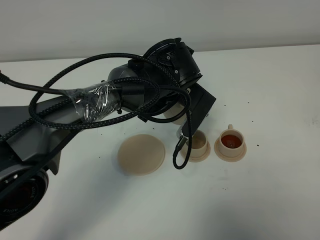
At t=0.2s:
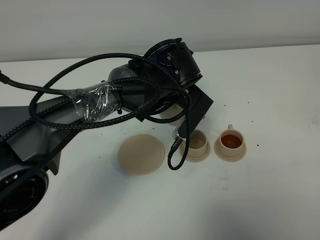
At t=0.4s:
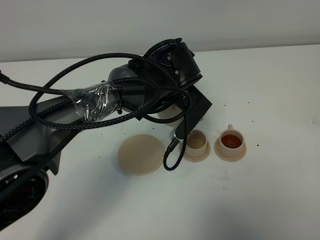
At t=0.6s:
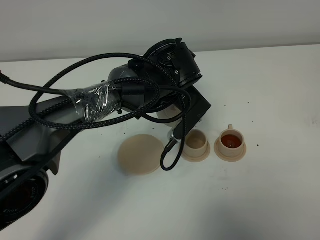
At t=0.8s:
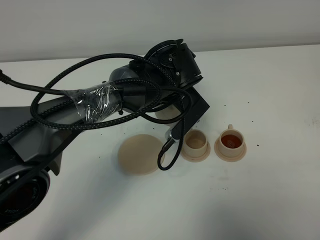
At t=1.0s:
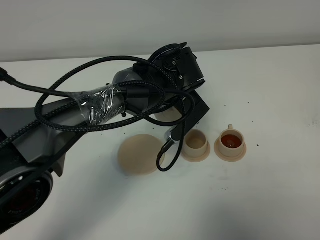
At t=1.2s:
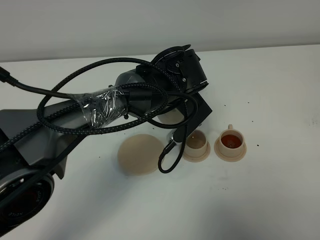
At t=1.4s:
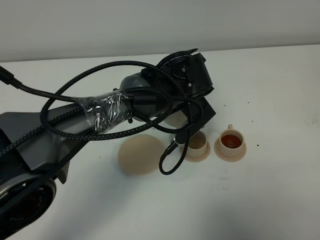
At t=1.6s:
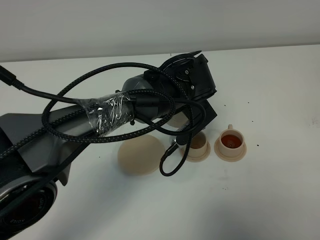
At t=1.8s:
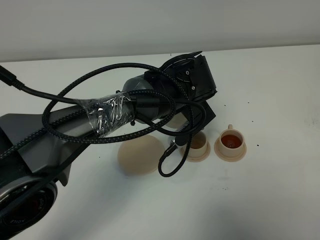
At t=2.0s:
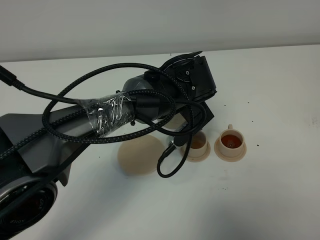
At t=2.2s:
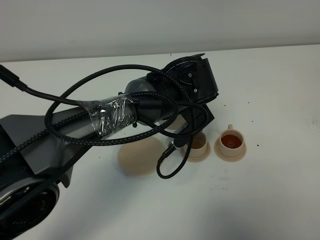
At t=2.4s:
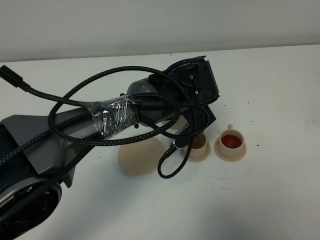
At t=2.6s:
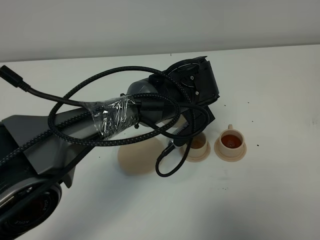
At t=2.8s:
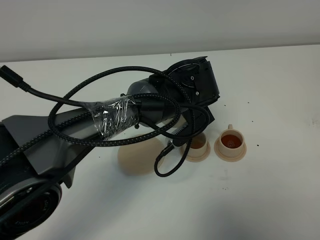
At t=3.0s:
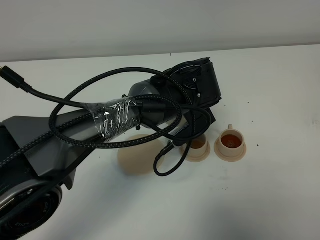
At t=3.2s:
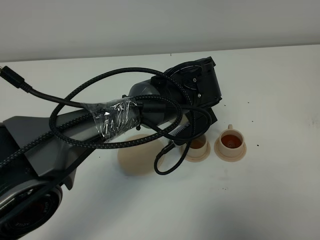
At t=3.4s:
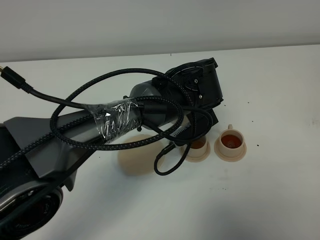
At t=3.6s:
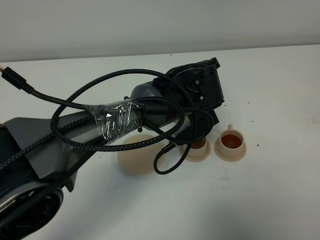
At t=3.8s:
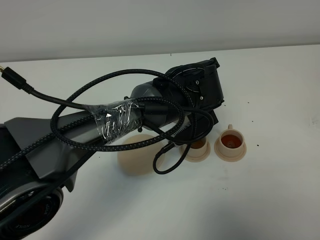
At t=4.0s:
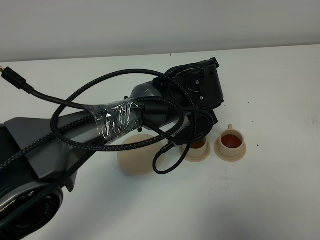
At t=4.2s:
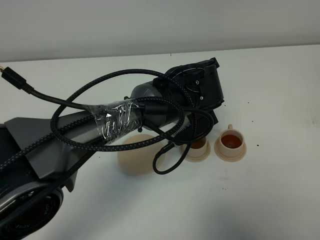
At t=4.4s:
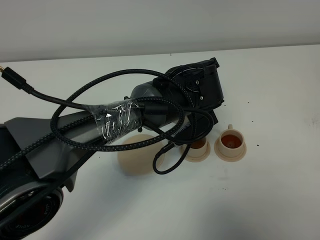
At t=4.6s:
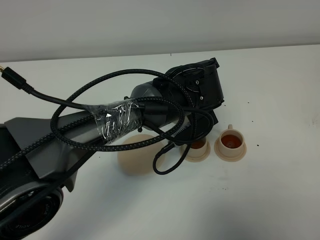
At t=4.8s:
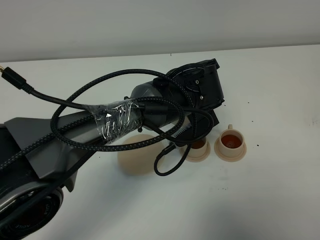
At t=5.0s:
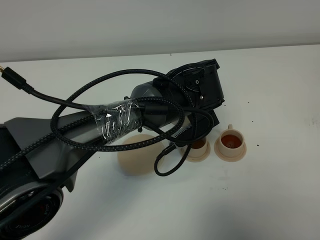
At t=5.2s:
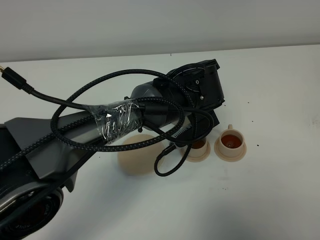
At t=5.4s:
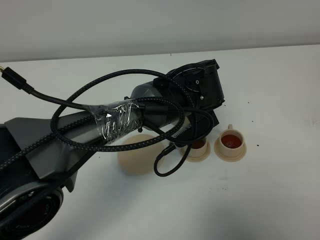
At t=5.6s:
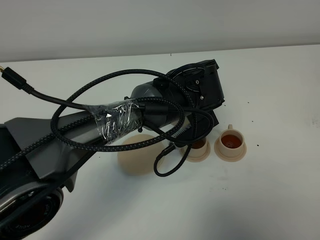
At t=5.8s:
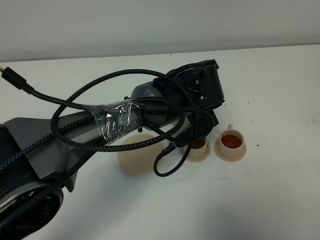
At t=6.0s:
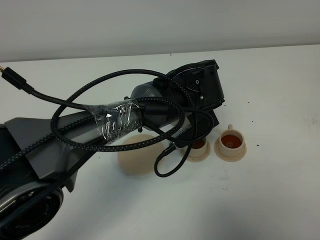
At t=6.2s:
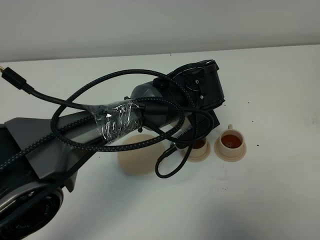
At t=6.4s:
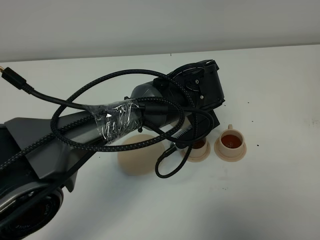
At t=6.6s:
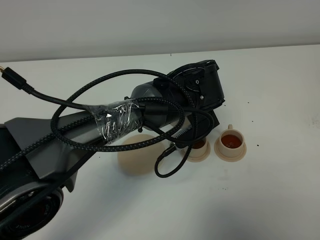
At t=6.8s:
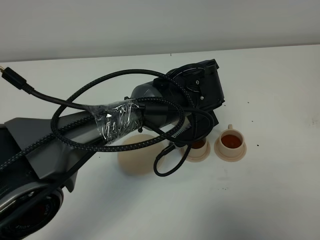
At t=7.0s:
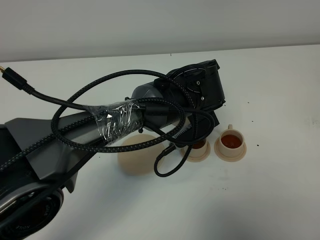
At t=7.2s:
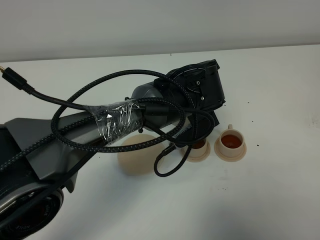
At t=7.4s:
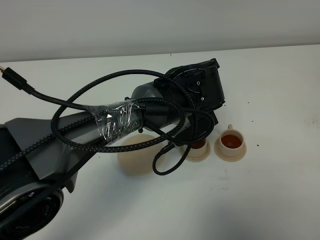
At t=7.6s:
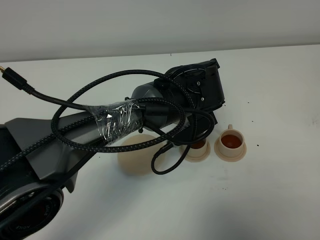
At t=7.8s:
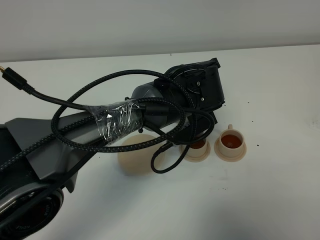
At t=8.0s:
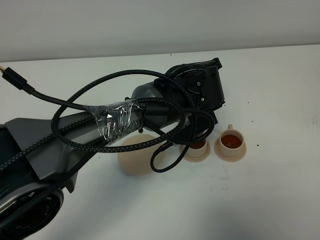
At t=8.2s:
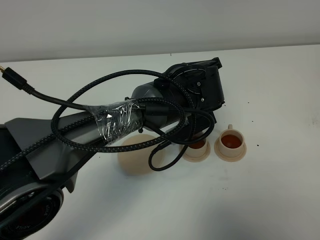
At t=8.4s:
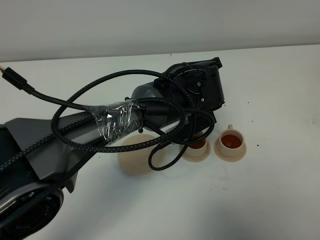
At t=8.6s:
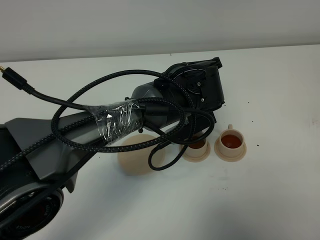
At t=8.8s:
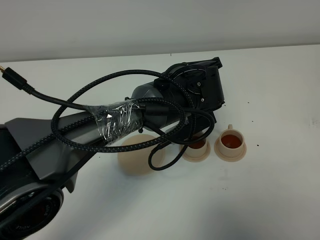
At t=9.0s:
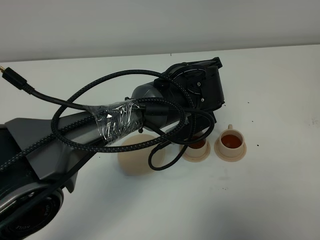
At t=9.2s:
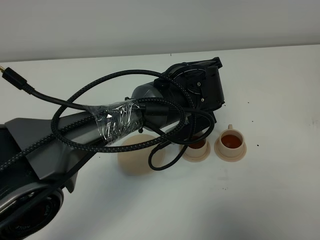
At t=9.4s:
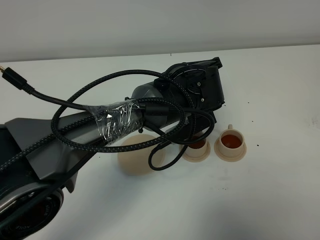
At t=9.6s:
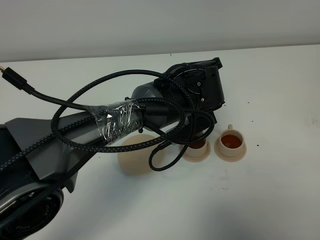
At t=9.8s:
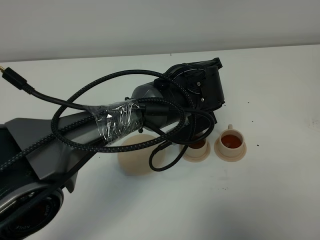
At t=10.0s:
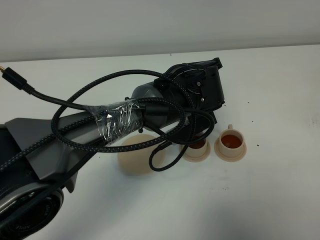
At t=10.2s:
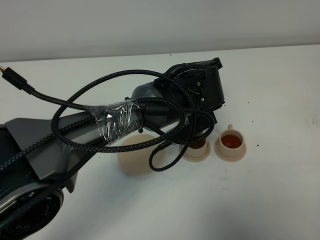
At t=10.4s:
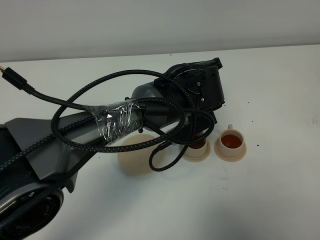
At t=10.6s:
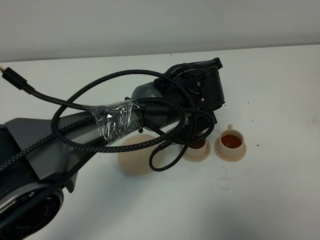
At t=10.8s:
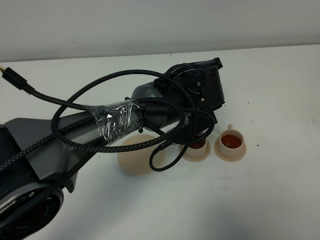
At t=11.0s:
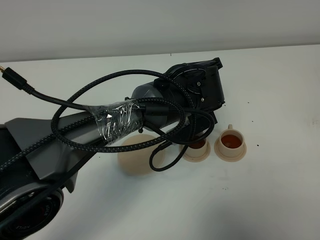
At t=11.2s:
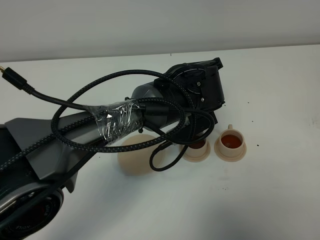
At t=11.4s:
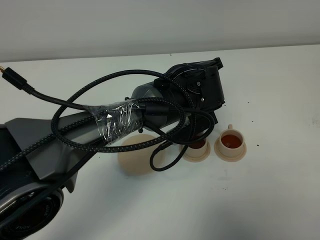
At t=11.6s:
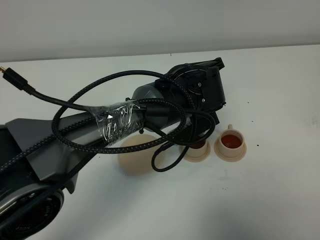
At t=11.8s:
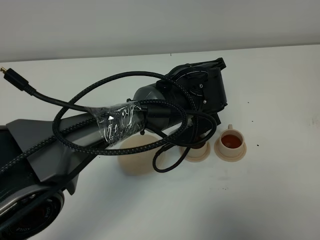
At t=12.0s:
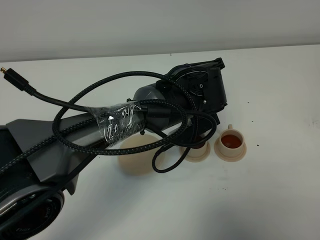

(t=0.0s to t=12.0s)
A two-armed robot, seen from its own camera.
Task of the whole recording: grasp the brown teapot and pour the tea into the two brown teacups one by one, put the brown teapot back in its original place.
t=0.0s - t=1.6s: The grippers make only small movements.
t=1.6s - t=3.0s: The grippers stay close to where they were, moving slightly.
t=3.0s - t=6.0s: Both grippers stay about where they are.
t=6.0s - t=7.6s: Both grippers stay about where they are.
t=7.6s - t=12.0s: Neither gripper changes place.

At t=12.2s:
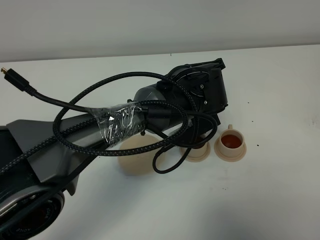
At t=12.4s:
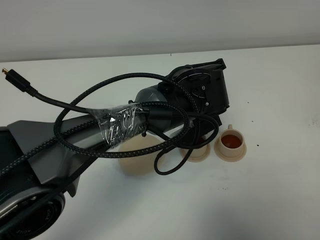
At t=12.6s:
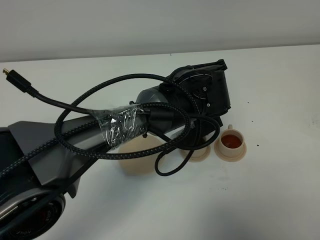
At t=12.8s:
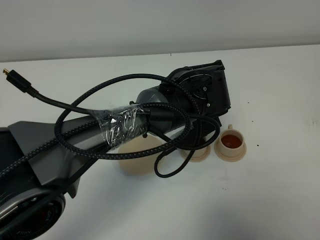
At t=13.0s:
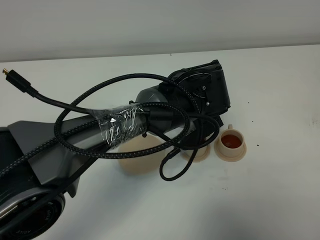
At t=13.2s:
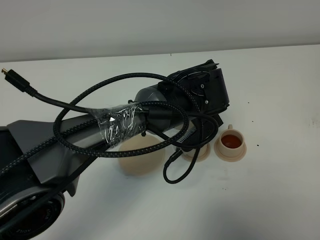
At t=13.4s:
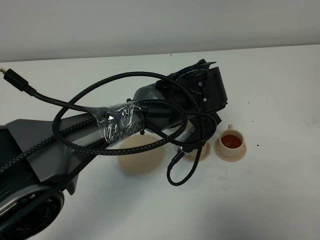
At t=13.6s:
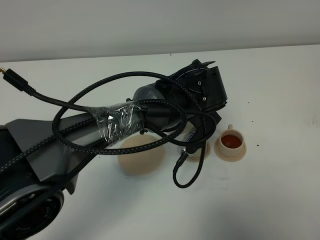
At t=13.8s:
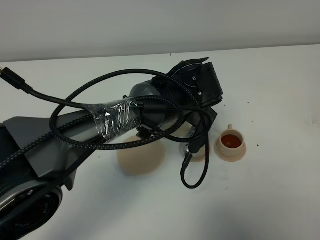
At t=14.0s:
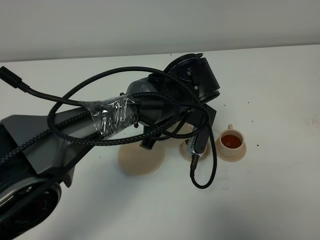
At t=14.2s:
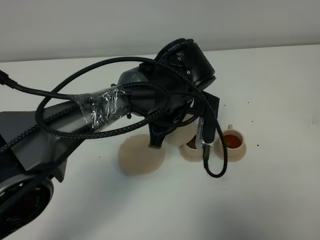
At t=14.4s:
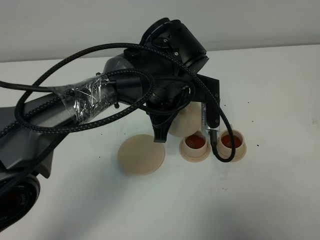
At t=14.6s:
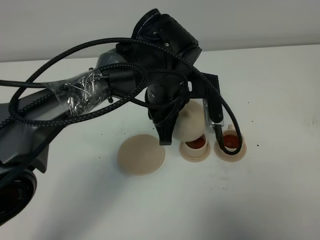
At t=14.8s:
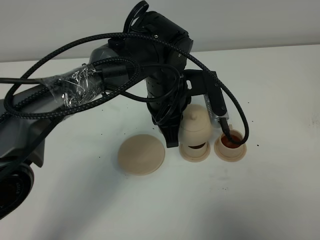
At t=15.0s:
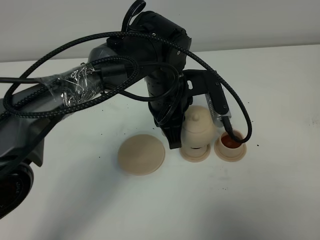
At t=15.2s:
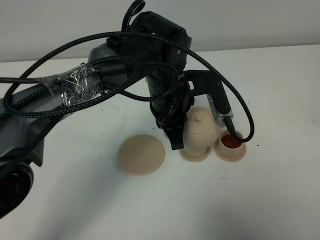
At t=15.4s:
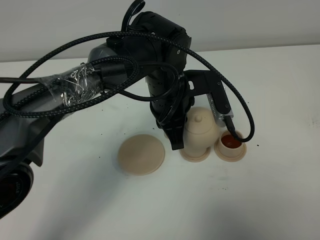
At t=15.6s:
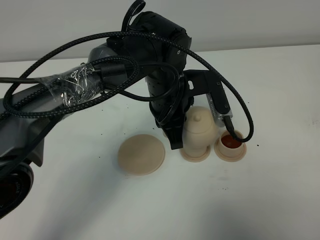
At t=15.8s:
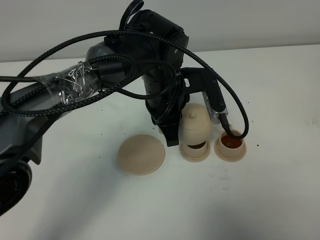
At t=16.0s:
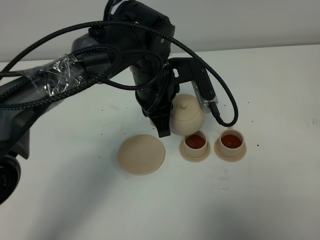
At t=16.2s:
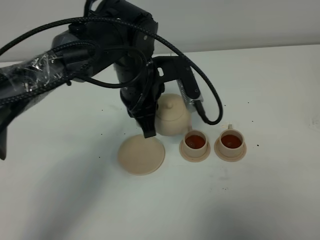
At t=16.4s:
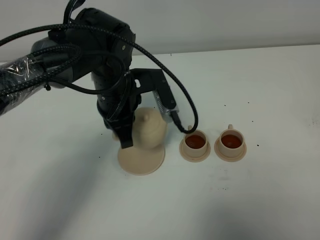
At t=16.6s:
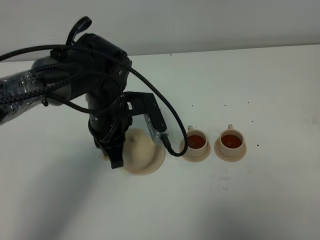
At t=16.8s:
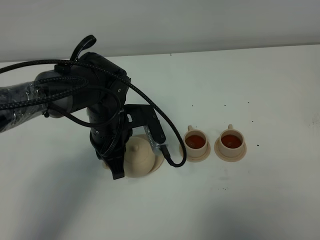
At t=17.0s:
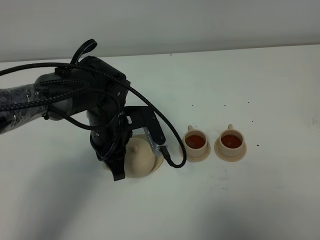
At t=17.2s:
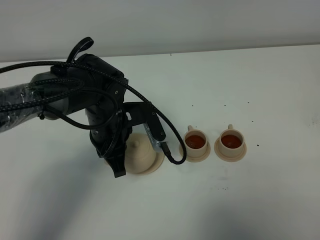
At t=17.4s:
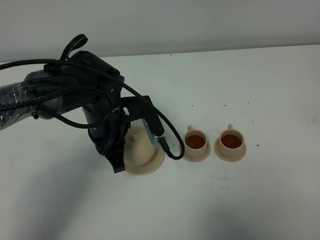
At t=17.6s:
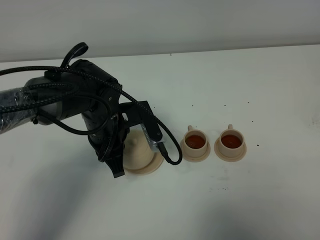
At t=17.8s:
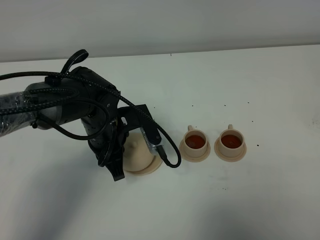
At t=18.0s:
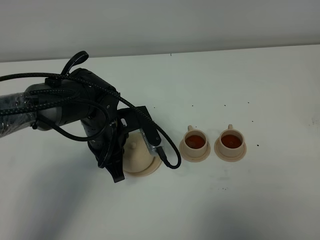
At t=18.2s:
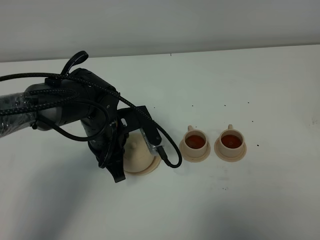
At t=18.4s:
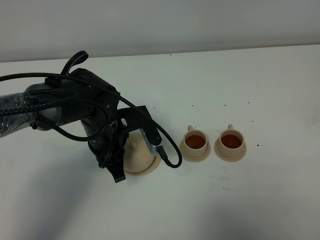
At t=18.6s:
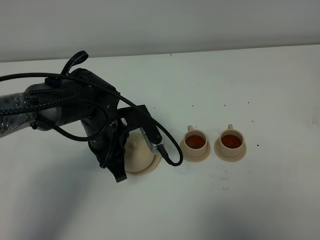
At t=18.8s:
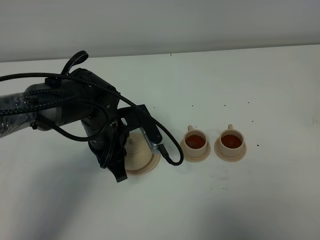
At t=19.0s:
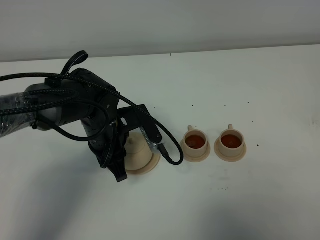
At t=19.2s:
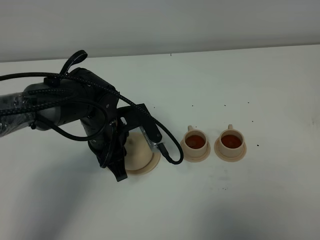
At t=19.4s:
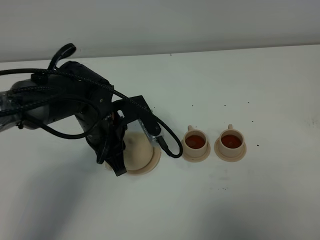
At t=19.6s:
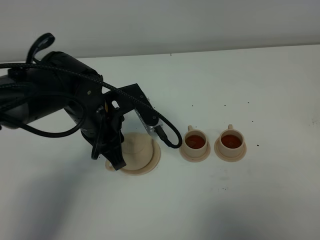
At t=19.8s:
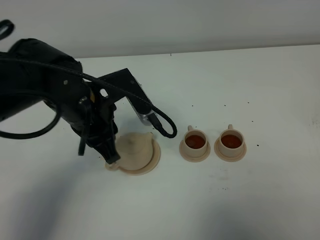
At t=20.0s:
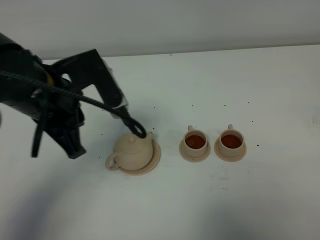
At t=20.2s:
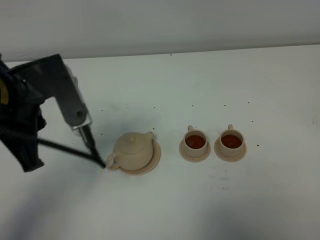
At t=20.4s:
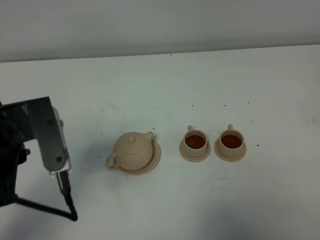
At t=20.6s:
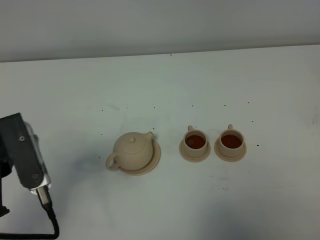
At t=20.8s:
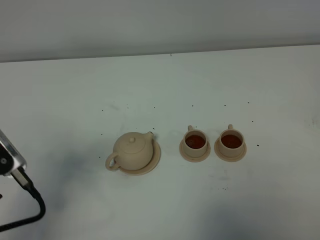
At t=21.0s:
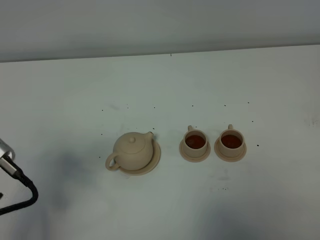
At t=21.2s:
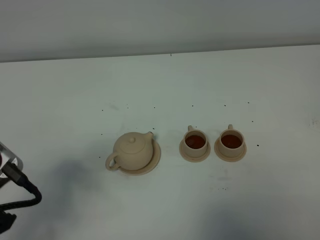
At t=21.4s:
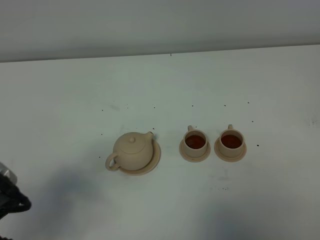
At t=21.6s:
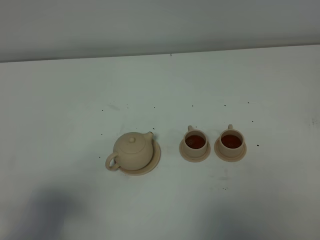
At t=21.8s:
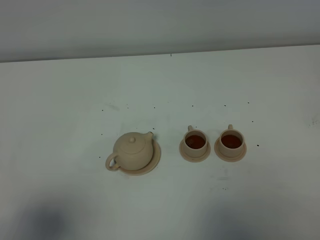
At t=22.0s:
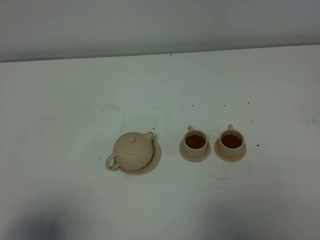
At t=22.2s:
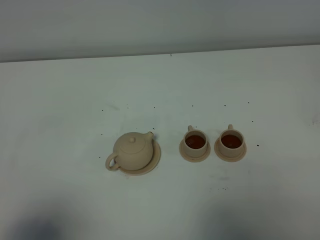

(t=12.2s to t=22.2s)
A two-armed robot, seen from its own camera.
Task of the whole recording: grasp the brown teapot and pour the tea into the two brown teacups one by one, put the brown teapot back in its original place.
t=15.0s - t=16.4s: The left gripper moves to the left, roughly 10 cm.
t=16.4s - t=18.0s: The left gripper travels downward by roughly 5 cm.
t=18.0s - t=19.4s: The left gripper opens its fingers.
t=19.4s - t=20.8s: The left gripper is displaced backward, to the left and upward by approximately 25 cm.
t=20.8s - t=22.2s: The left gripper moves backward, roughly 15 cm.
